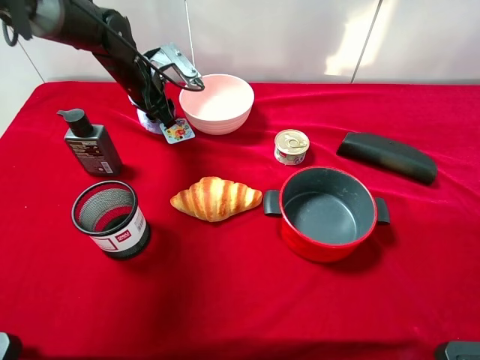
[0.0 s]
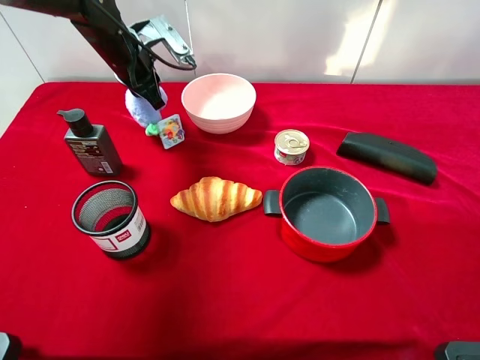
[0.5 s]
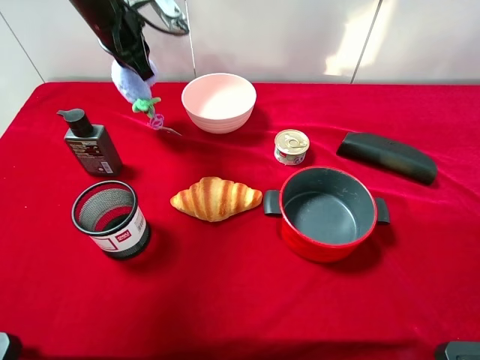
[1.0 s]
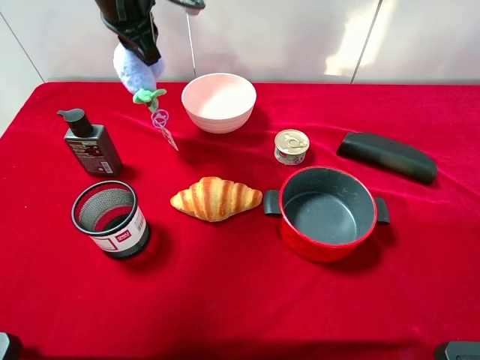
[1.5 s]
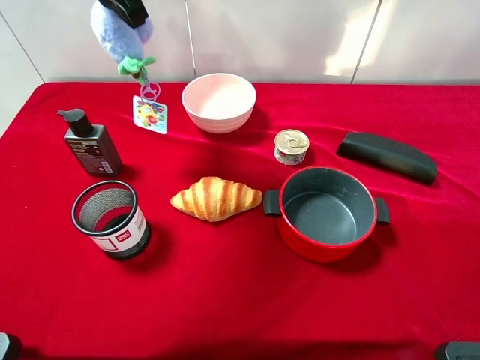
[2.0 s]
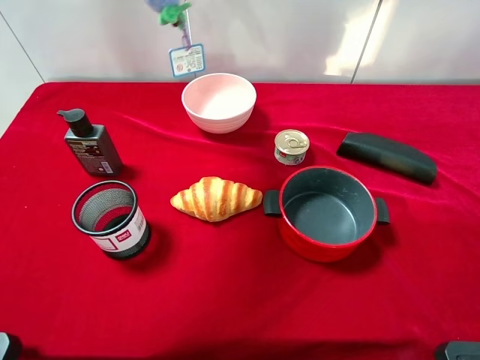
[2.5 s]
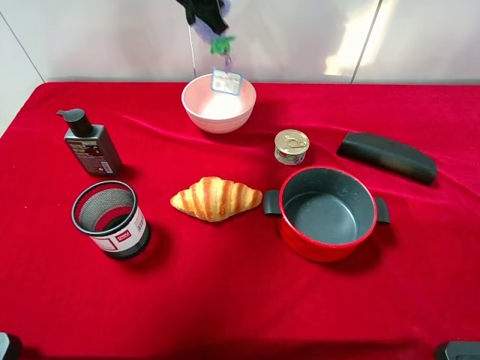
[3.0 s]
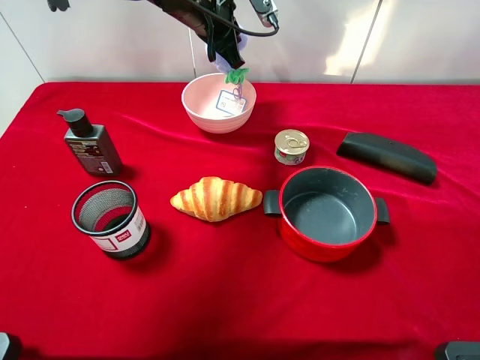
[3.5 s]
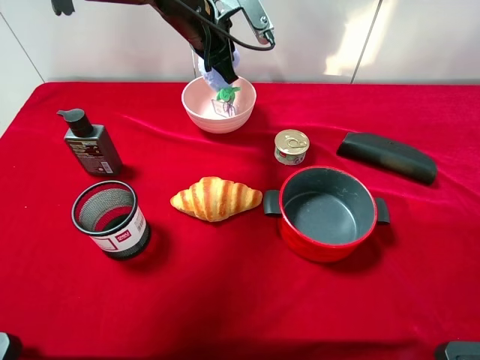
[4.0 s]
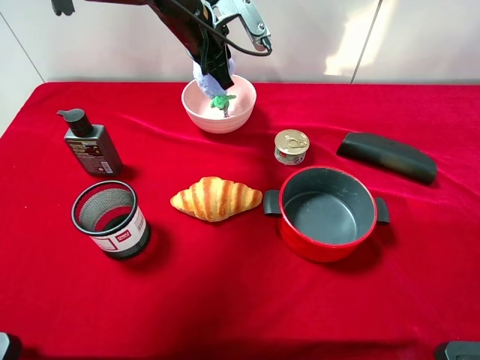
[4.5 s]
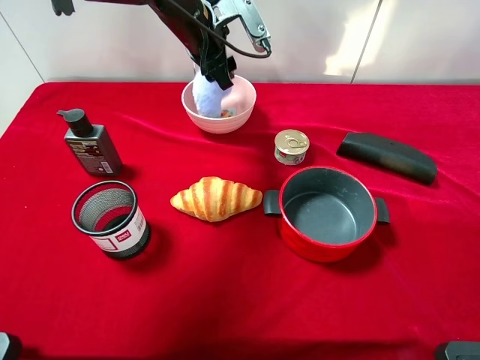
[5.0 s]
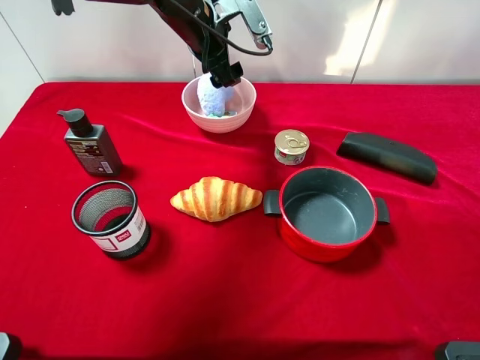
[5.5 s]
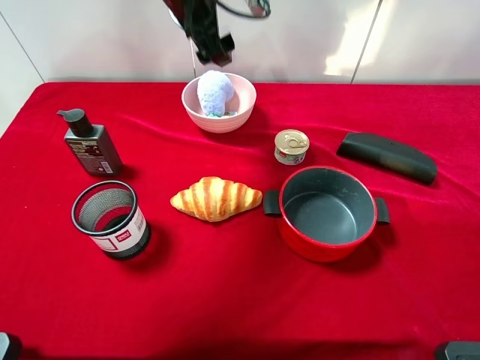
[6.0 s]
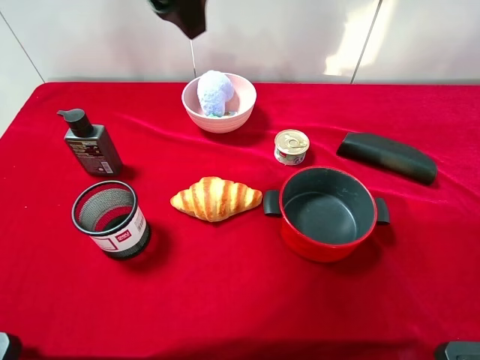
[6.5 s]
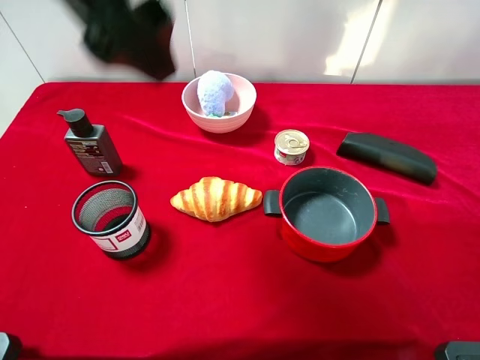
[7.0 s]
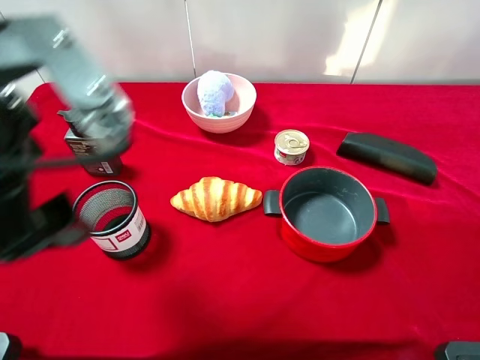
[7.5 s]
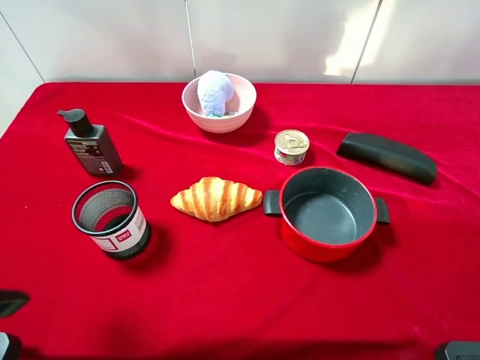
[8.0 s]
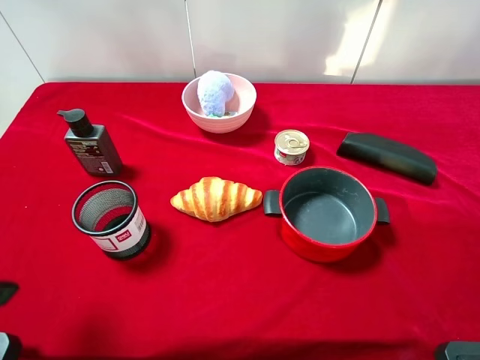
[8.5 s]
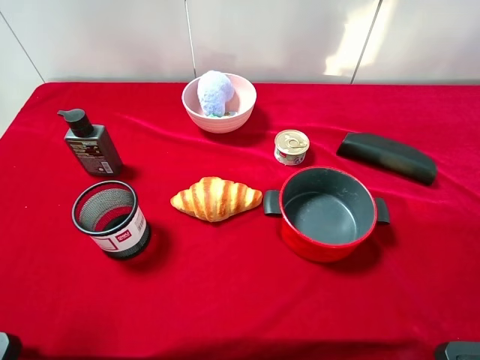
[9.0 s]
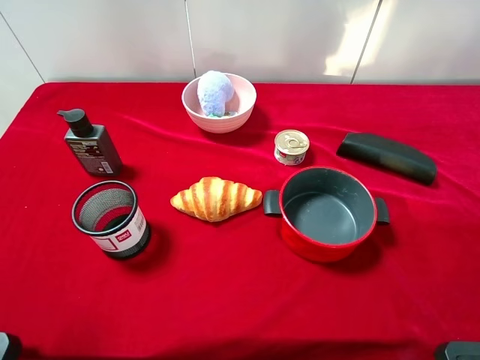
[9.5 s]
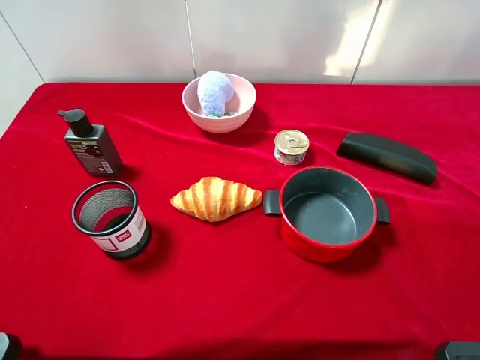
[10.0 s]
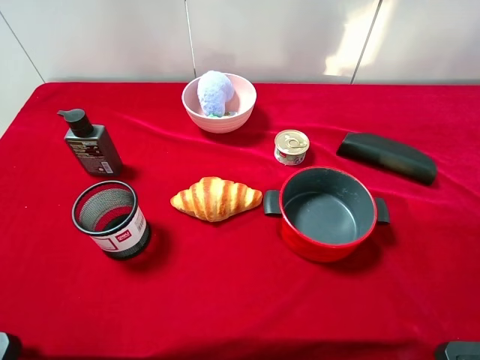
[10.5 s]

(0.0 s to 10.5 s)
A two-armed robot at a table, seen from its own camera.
Task of the whole recording: pick up an item with a gripper and place it in a random container on the desktop.
0.0 s - 2.0 s: The left gripper is displaced upward by roughly 20 cm, and closes its fingers.
2.0 s - 4.0 s: The left gripper heads downward, to the right and forward, covering about 15 cm.
4.0 s - 6.5 s: The left gripper goes approximately 25 cm upward and backward, and opens its fingers.
6.5 s - 8.5 s: The left gripper shifts about 30 cm backward, to the left and downward.
